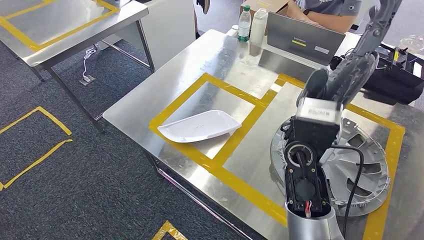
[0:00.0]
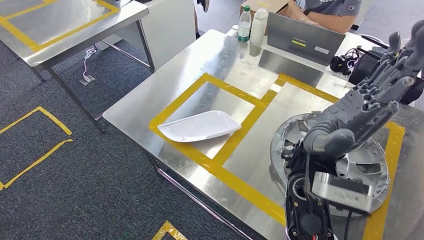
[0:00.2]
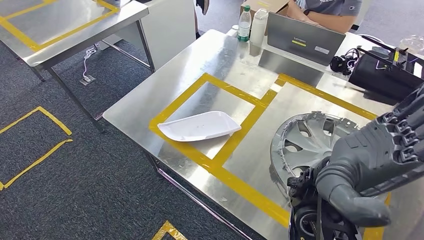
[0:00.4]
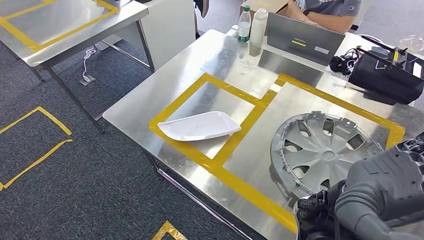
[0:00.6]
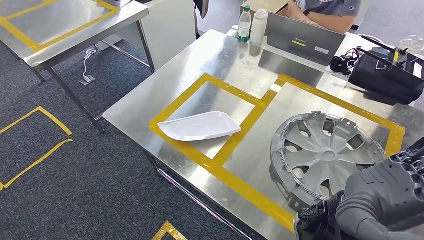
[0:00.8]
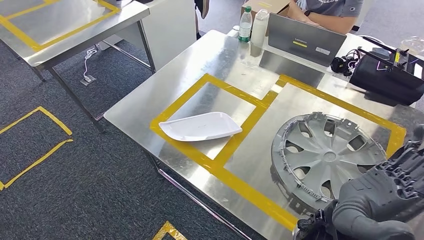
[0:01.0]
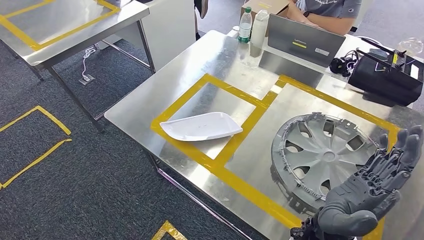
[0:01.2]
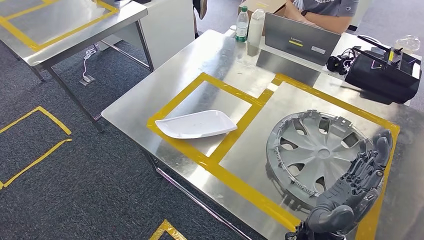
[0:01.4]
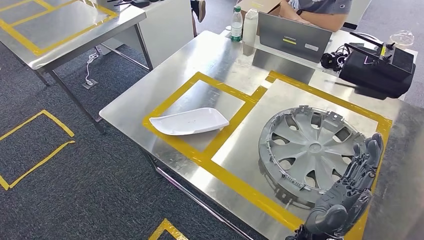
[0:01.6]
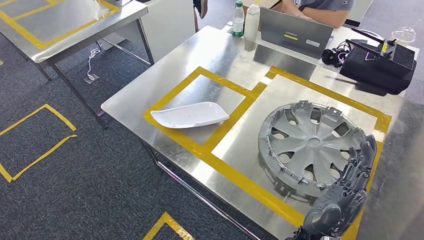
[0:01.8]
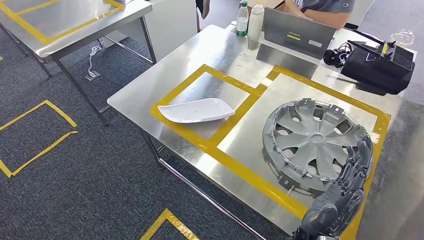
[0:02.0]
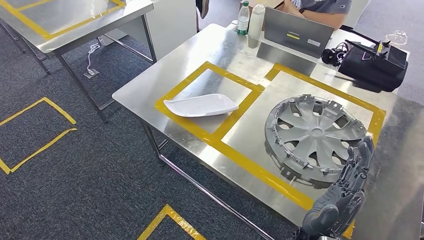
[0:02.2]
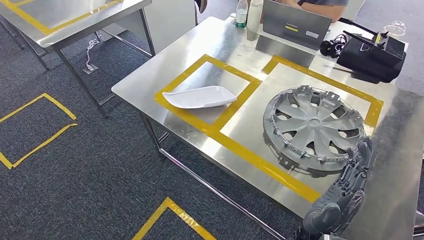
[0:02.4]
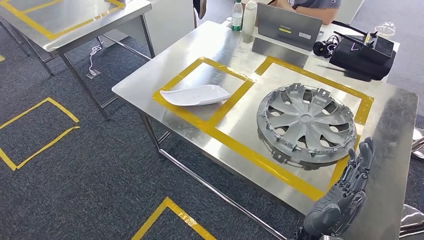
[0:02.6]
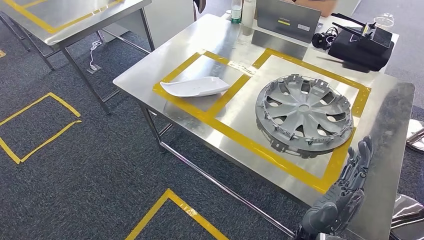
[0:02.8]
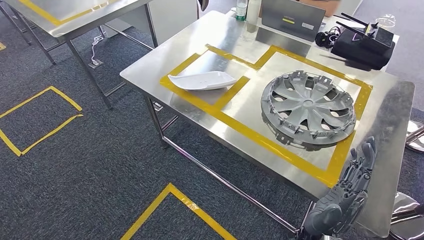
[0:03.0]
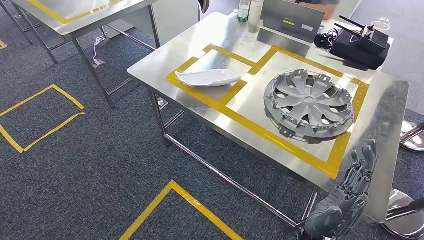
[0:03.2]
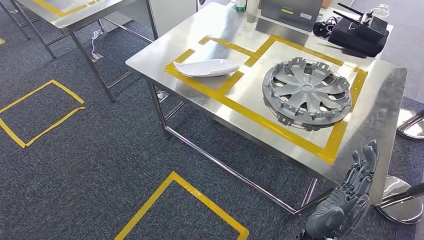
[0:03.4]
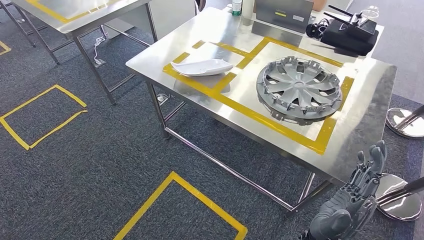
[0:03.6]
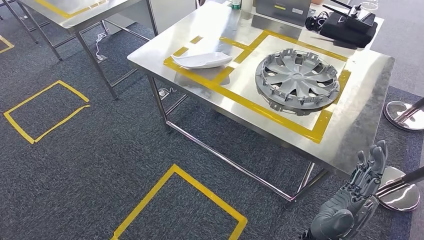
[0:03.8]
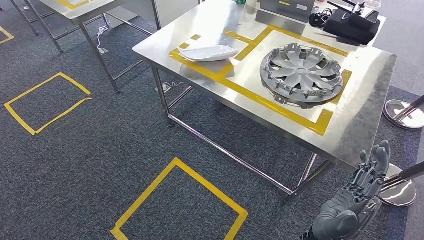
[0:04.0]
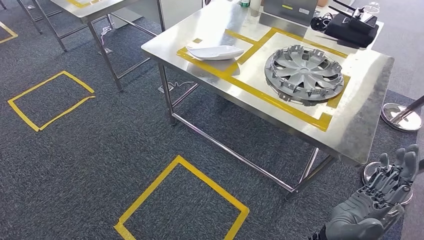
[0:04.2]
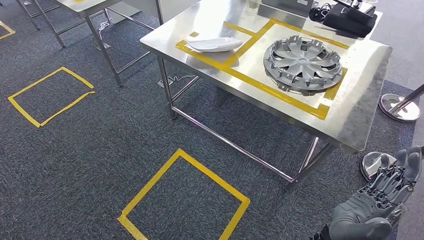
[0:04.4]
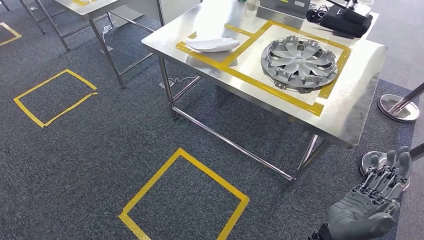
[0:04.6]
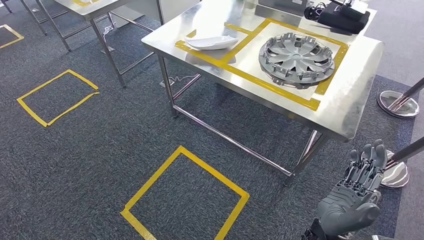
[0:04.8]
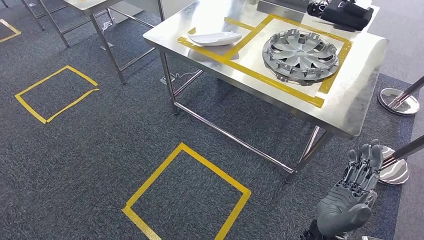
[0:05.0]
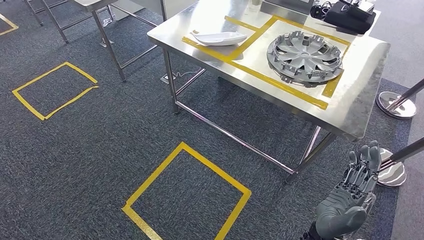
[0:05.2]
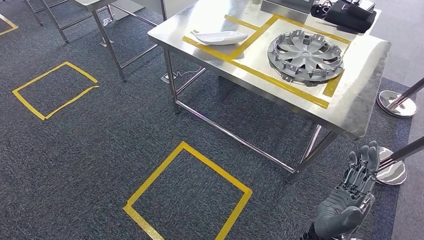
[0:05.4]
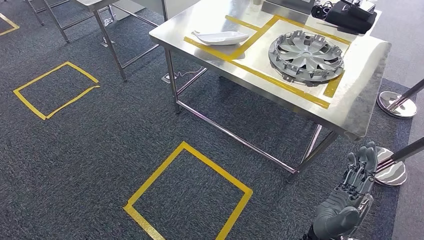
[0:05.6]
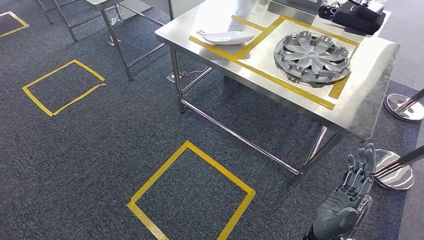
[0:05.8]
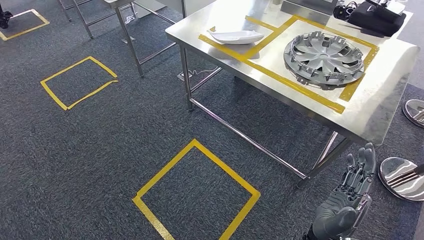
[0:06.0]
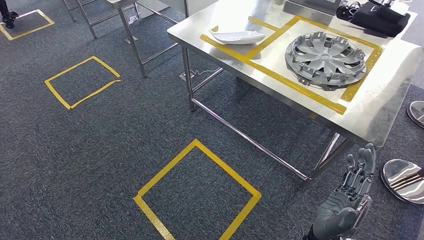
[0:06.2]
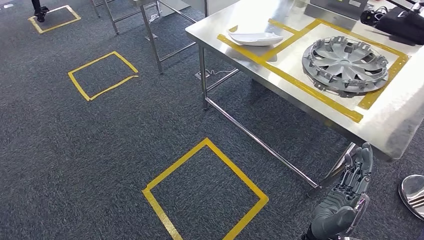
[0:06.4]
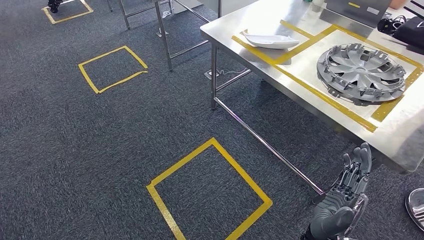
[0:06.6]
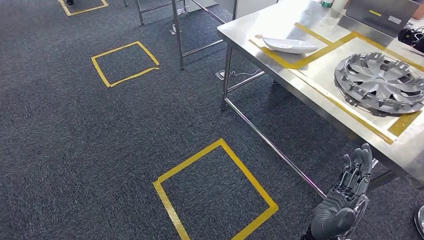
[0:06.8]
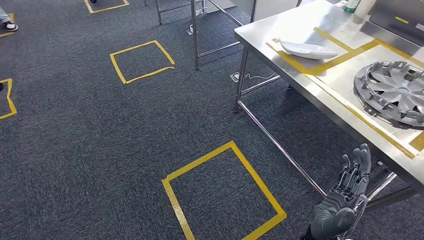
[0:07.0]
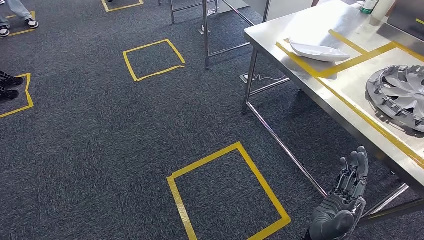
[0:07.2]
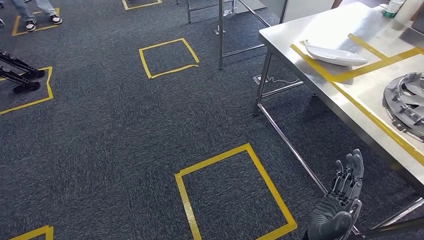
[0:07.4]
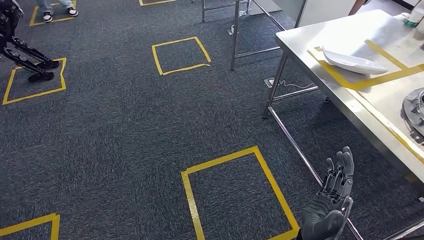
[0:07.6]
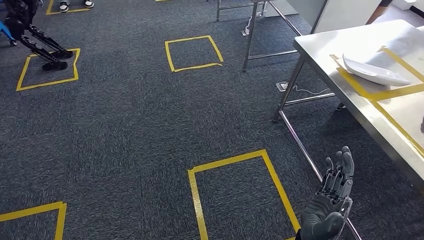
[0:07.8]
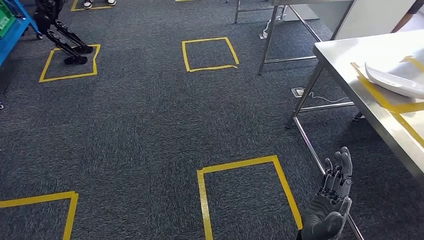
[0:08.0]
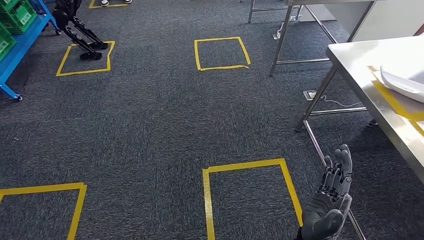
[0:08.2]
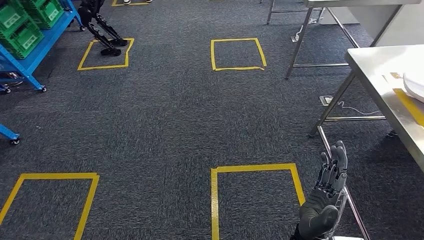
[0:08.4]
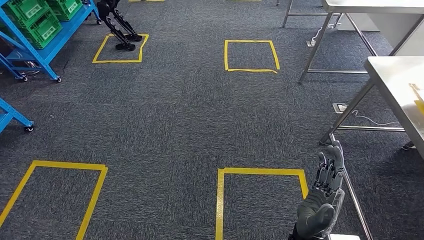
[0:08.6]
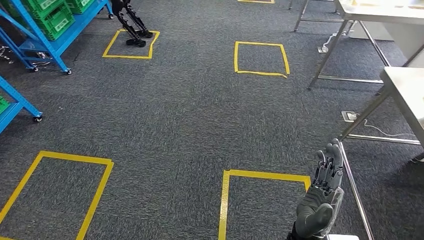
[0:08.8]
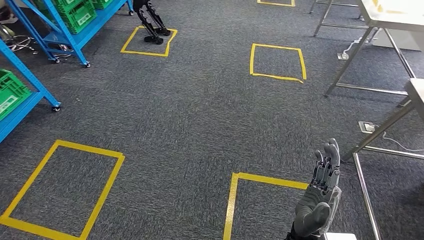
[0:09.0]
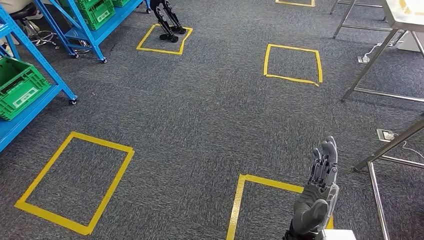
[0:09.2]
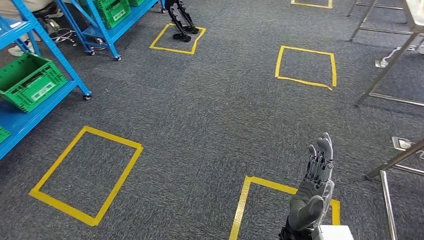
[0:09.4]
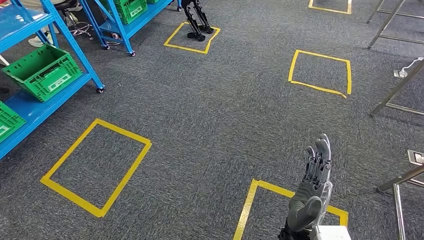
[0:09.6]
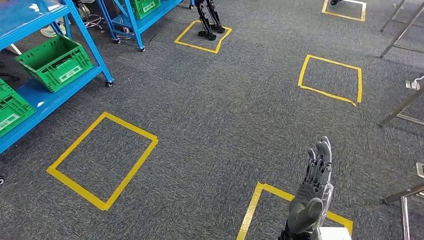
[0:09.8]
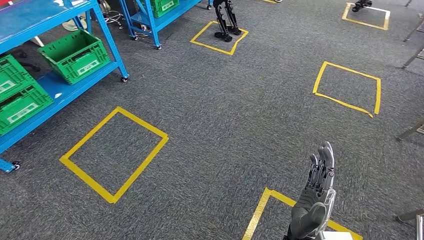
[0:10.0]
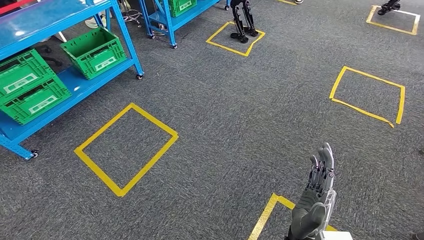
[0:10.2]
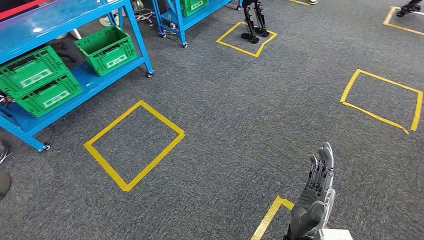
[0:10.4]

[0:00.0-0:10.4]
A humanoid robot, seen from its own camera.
Step, 0:00.2 to 0:10.4: Return to the initial position at the shelf.

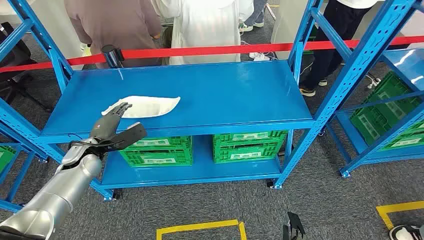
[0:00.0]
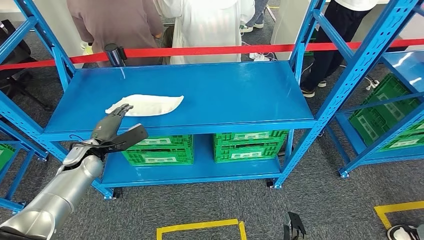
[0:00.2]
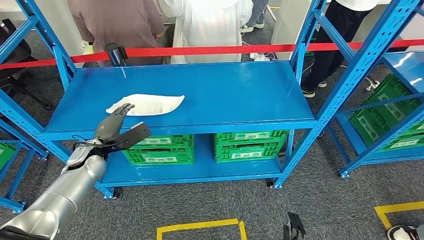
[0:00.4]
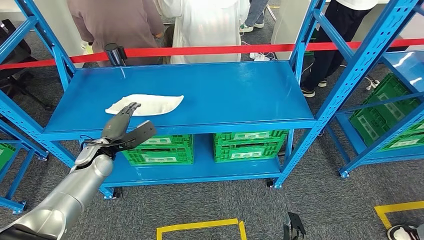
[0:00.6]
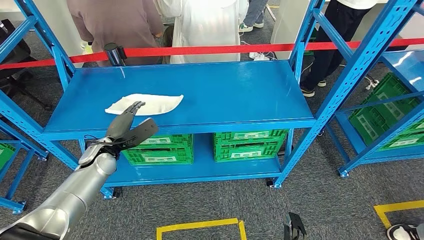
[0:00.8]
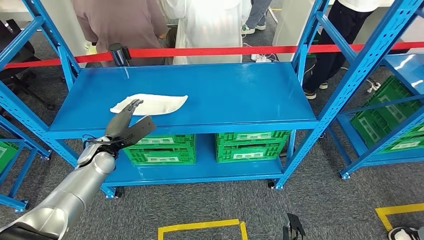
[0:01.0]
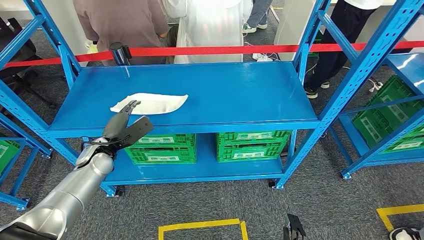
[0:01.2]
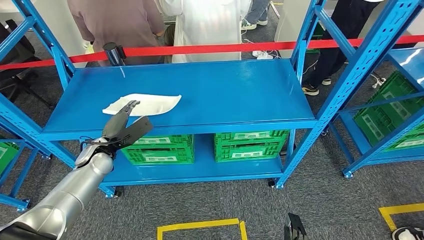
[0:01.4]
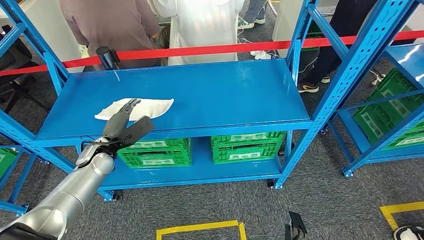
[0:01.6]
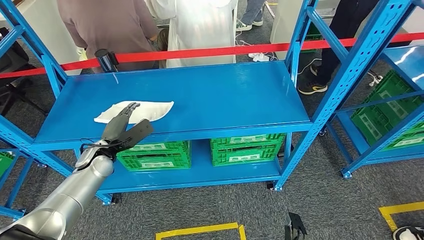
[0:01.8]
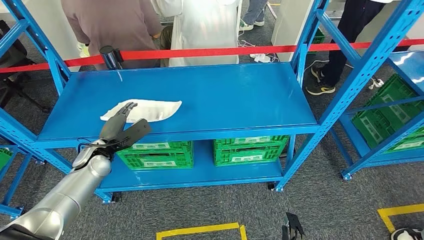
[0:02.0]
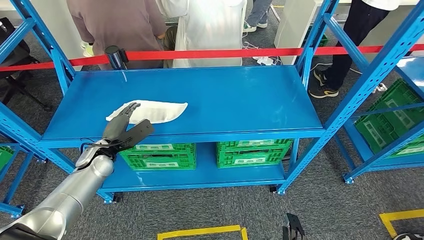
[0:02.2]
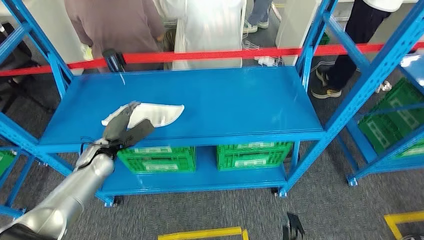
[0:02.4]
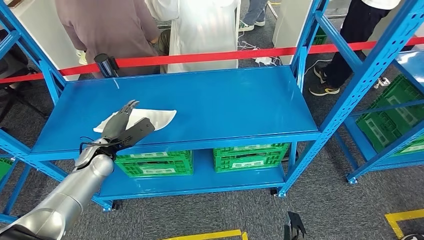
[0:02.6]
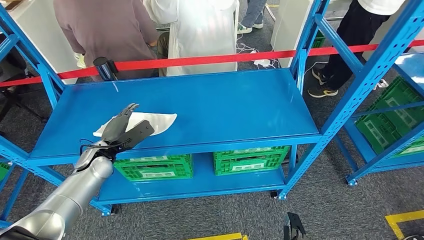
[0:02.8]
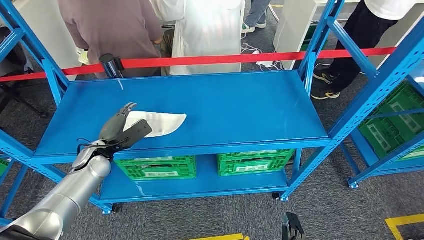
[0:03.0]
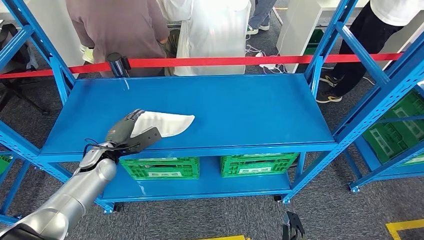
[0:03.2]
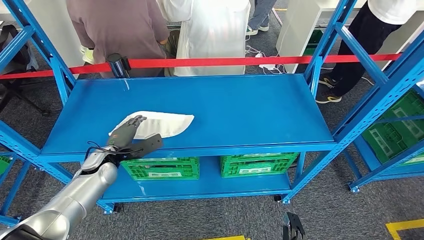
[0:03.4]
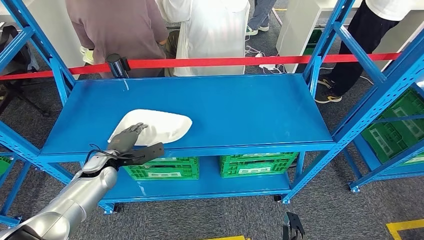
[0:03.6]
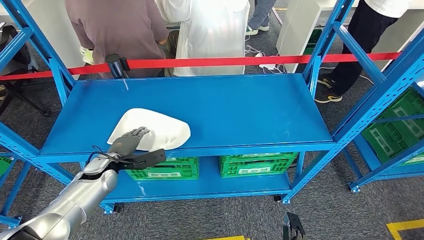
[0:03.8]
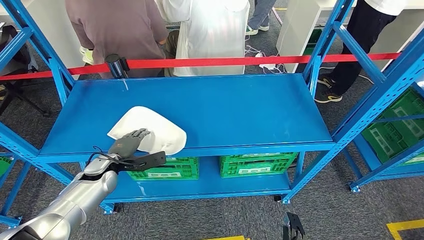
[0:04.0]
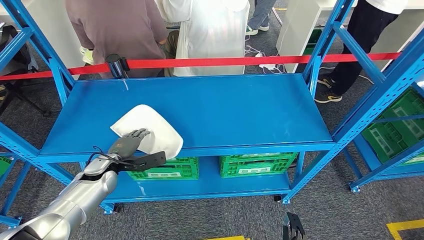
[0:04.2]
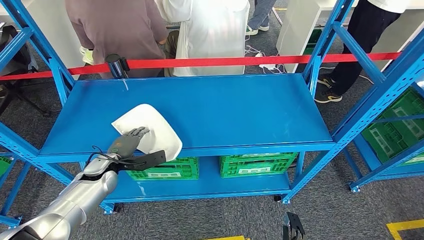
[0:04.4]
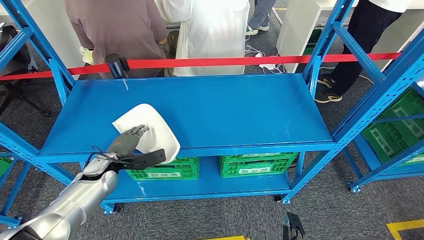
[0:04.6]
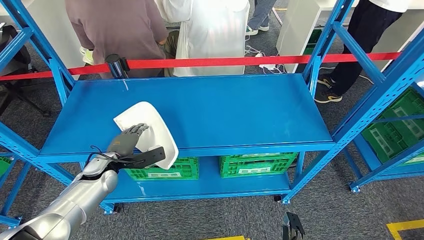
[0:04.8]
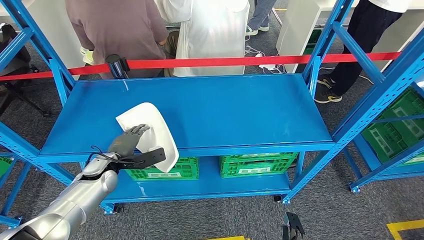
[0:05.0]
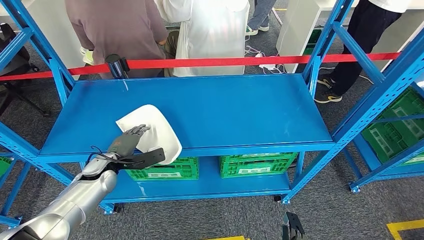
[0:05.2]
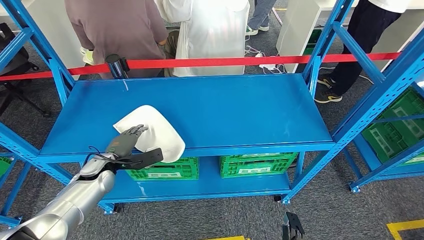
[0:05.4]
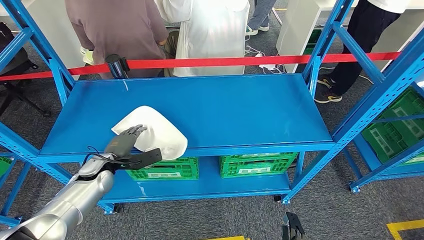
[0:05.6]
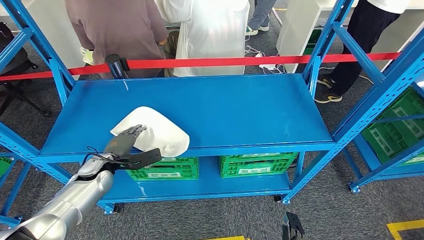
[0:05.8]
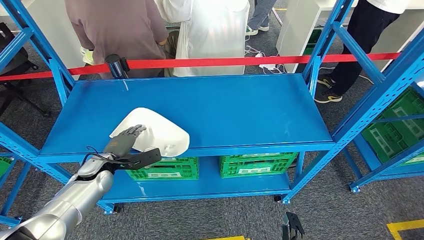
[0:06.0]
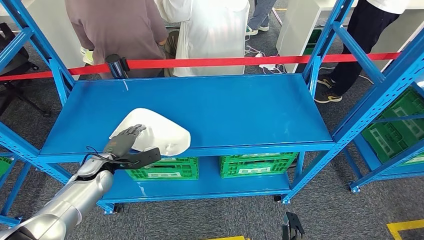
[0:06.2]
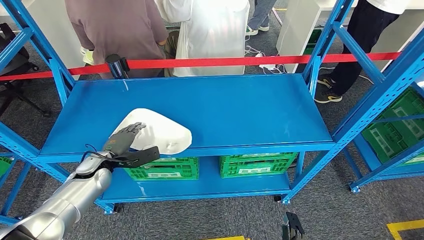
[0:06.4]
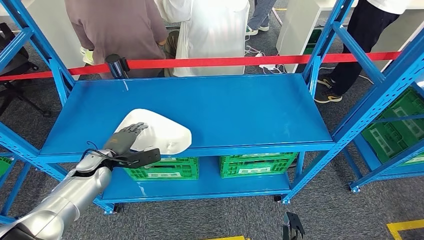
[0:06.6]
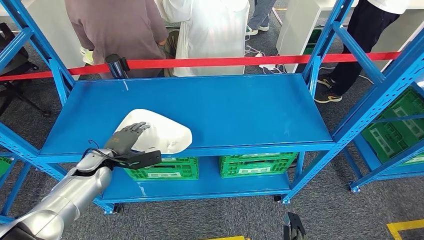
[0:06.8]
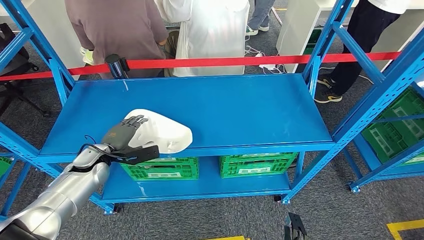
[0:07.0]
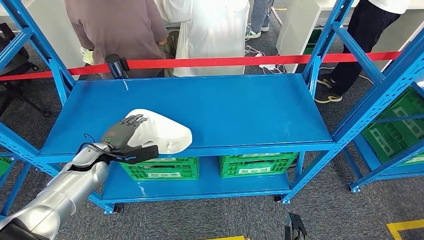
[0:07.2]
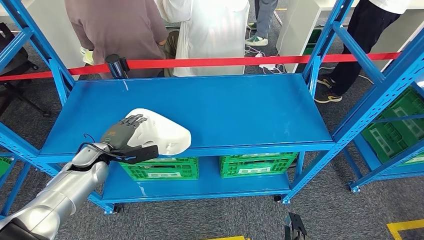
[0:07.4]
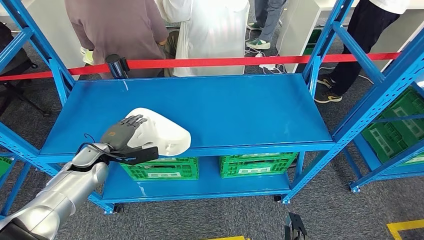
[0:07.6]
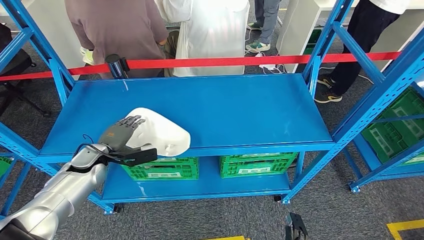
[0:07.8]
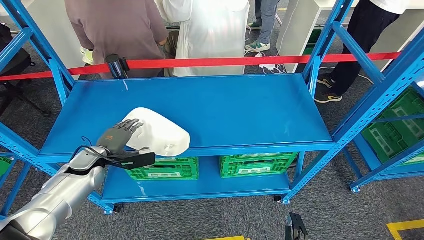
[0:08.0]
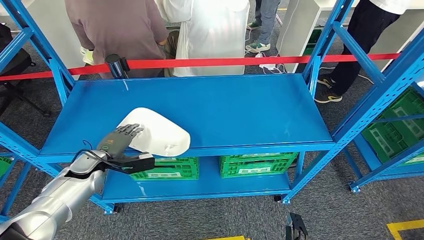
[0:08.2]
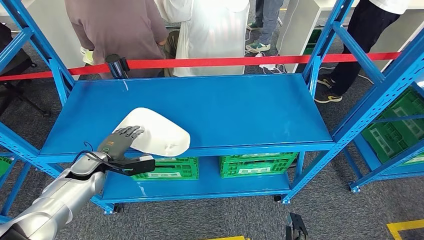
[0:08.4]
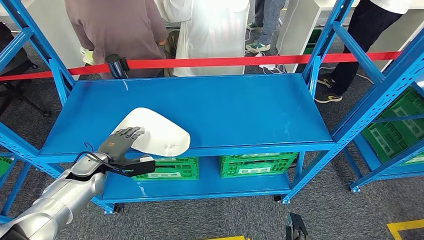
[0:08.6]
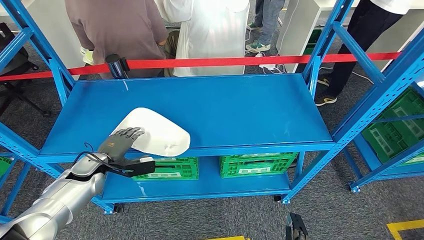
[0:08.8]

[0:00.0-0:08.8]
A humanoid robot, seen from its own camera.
0:04.4 to 0:05.8: Both hands stay put.
0:05.8 to 0:08.8: The hands make only small movements.
